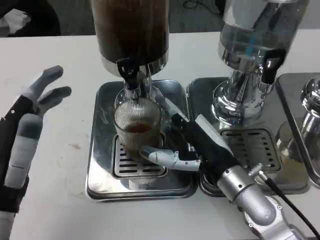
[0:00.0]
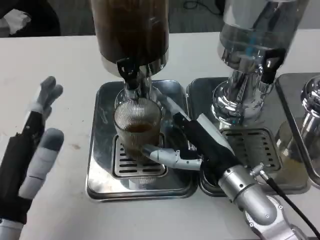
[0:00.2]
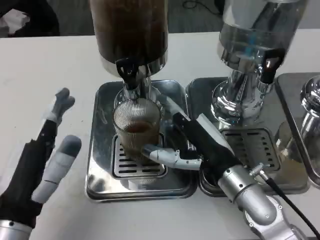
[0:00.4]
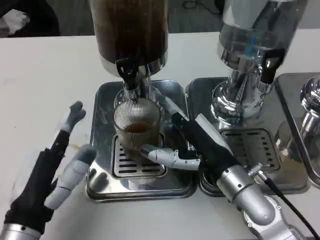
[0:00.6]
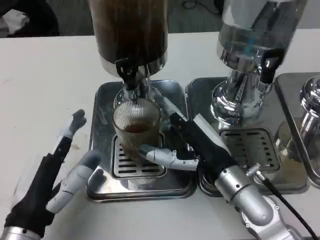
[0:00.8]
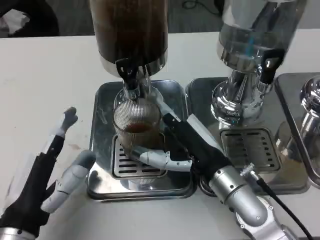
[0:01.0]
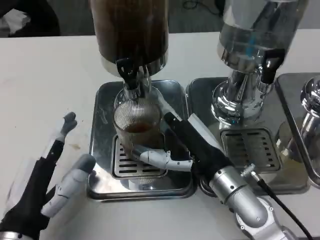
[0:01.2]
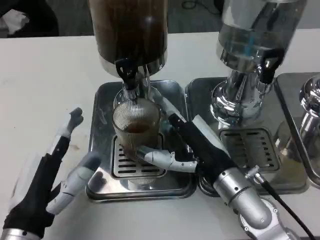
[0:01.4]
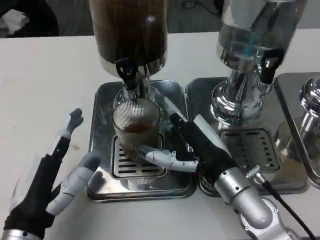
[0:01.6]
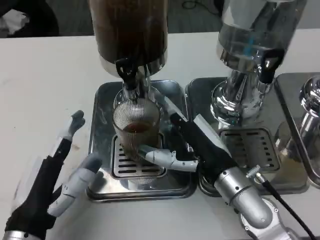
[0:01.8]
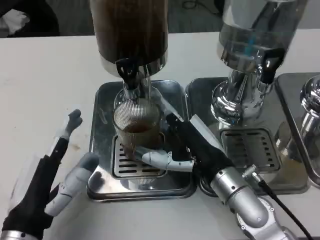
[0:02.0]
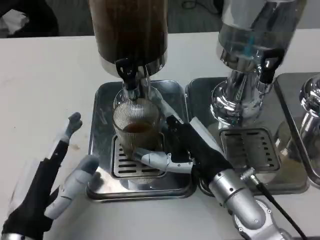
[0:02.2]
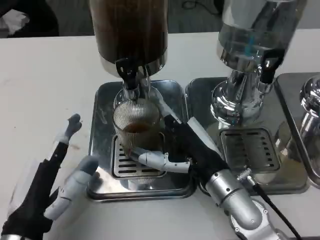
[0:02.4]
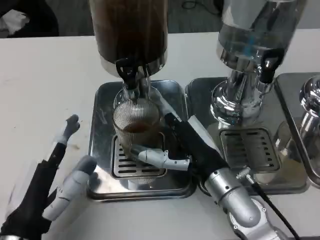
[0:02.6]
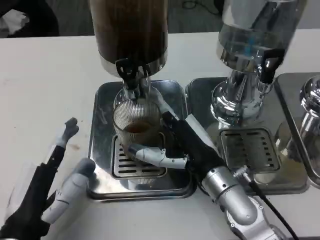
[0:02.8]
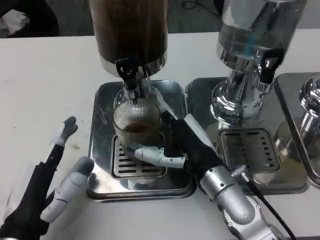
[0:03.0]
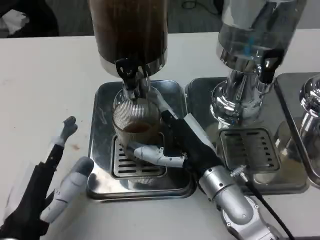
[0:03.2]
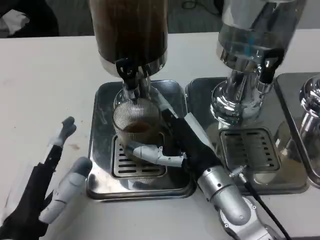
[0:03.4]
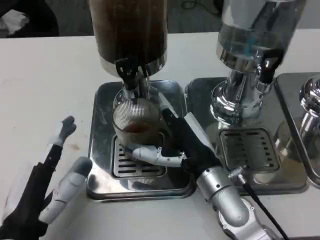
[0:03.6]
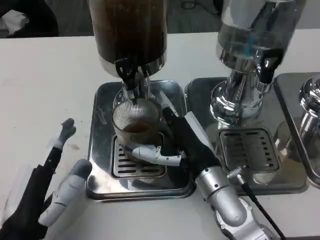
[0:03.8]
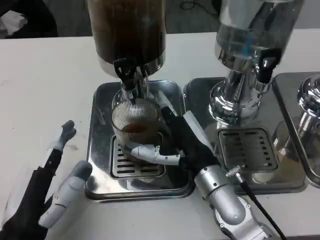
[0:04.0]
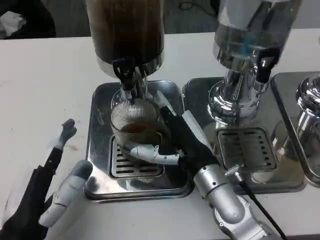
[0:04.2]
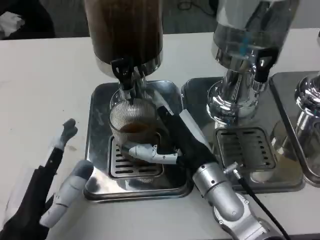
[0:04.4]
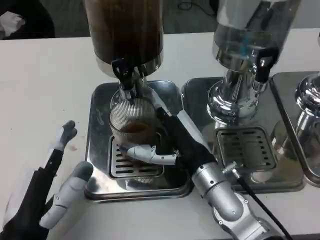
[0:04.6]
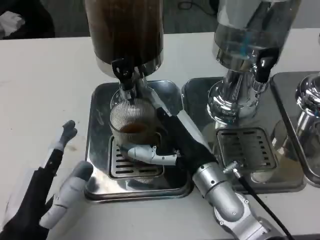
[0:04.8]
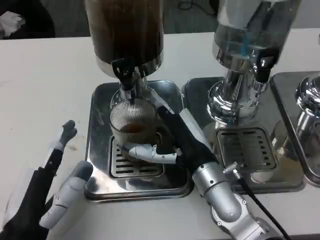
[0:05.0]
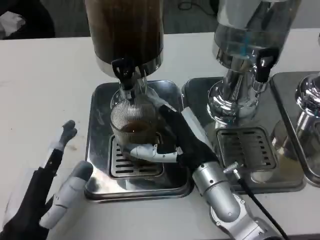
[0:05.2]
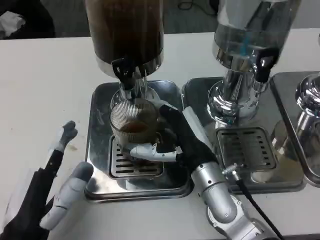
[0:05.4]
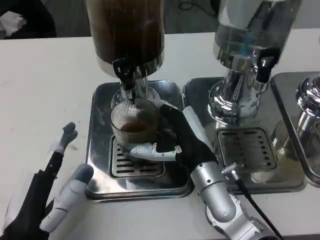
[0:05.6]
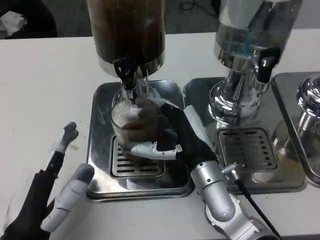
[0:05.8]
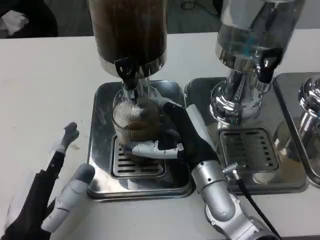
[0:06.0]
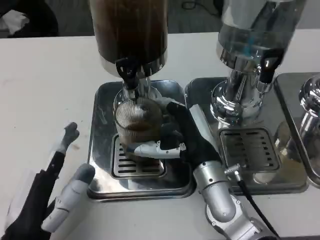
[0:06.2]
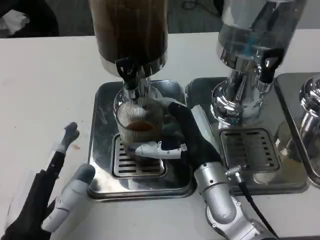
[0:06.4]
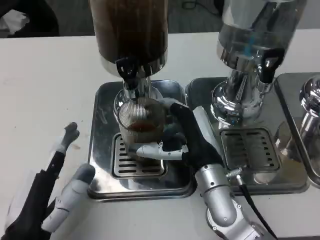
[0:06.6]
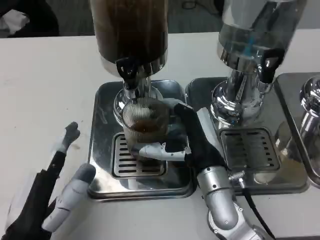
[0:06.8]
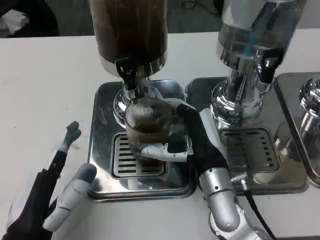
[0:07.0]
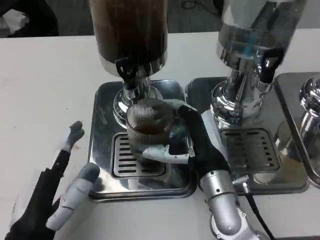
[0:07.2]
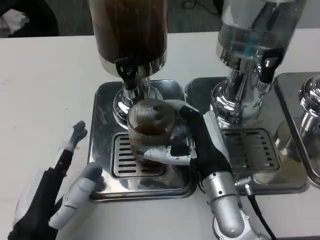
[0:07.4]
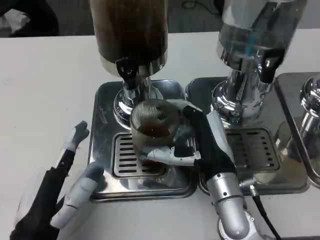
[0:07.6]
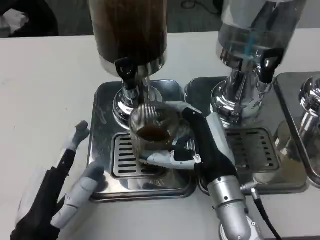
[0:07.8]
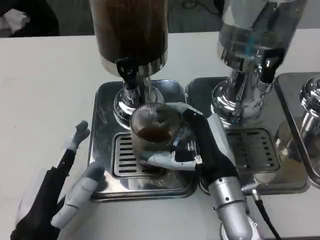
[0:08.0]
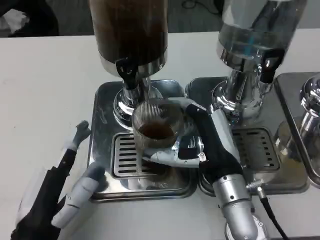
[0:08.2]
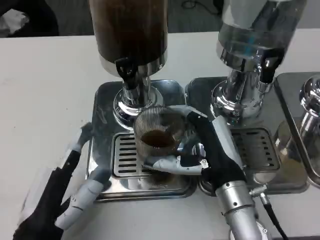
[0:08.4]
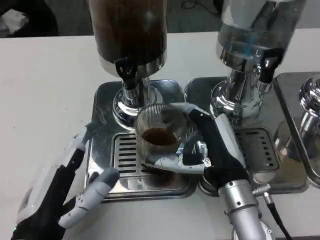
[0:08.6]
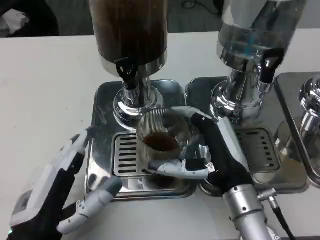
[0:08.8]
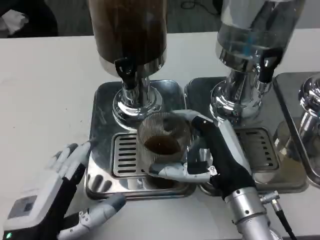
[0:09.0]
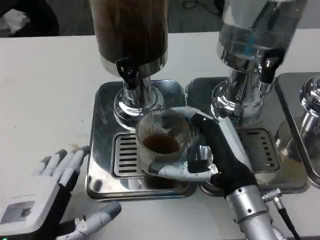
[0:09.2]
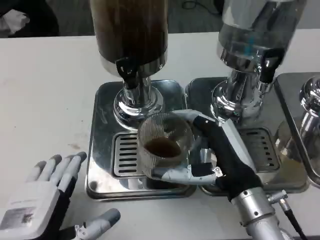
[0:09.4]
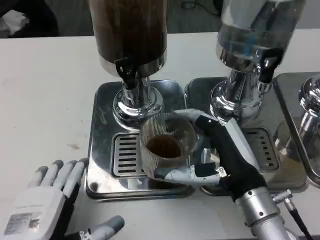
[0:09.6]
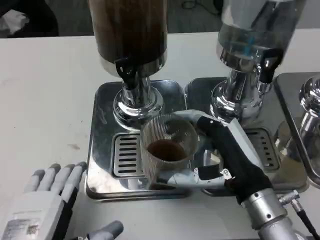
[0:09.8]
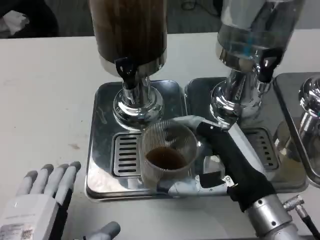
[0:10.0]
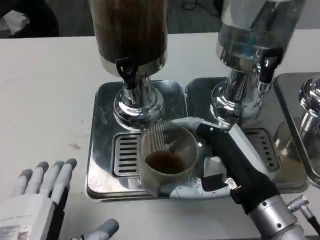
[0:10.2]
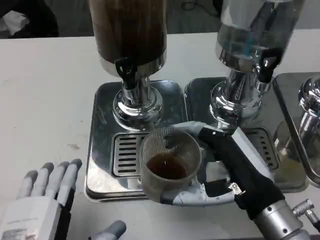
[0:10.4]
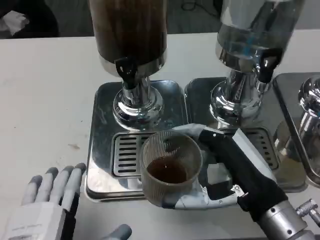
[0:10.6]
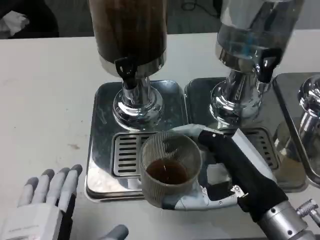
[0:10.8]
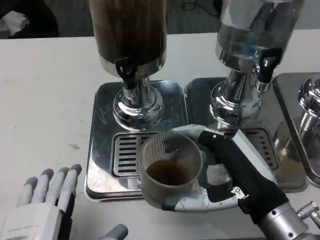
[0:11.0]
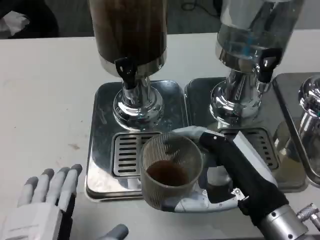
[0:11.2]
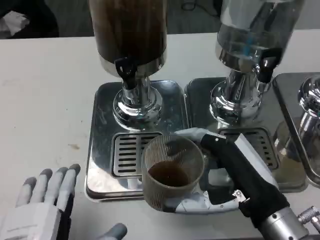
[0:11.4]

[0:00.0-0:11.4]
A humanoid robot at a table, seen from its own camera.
Task of the whole recording: Grasp the cup under the faucet to collect the drink, then remove the cup.
0:01.4 to 0:02.8: The hands stay close to where they were, moving slightly.
0:04.2 to 0:05.6: The hands make only small movements.
0:07.2 to 0:08.6: There are only small adjustments of the hands.
0:08.6 to 0:10.0: The right hand changes place by roughly 5 cm; the left hand heads backward, covering roughly 5 cm.
0:10.0 to 0:11.4: There are only small adjustments of the hands.

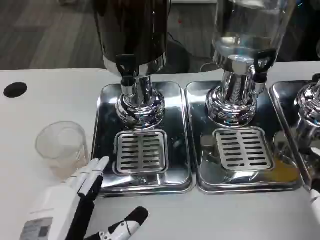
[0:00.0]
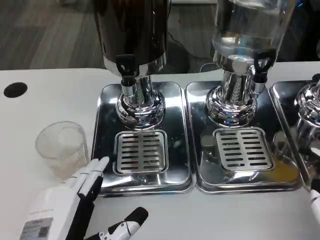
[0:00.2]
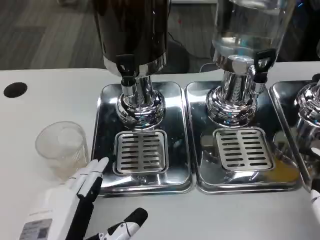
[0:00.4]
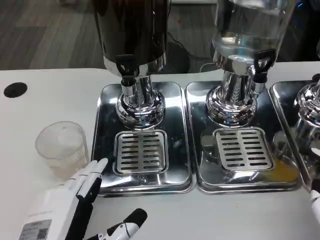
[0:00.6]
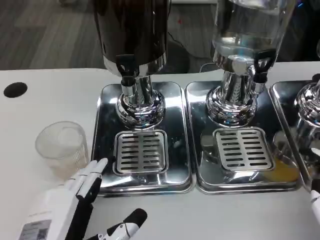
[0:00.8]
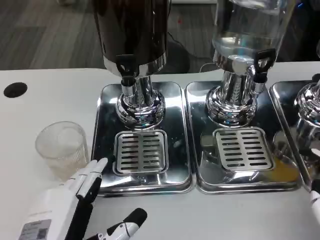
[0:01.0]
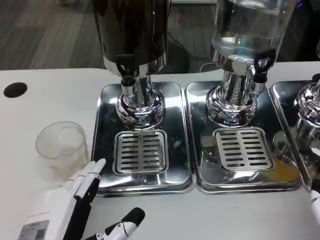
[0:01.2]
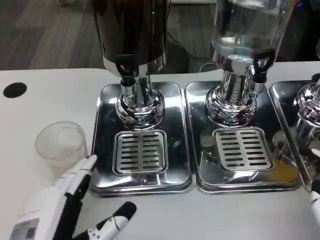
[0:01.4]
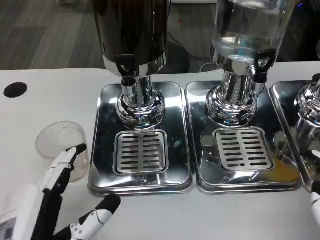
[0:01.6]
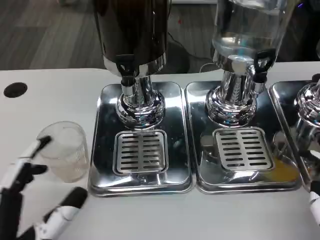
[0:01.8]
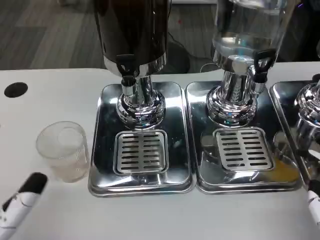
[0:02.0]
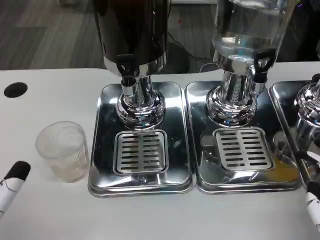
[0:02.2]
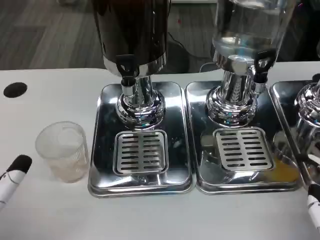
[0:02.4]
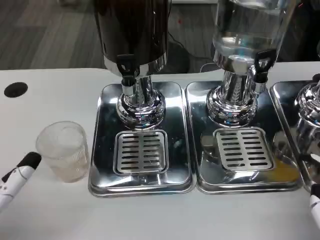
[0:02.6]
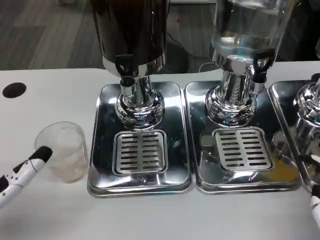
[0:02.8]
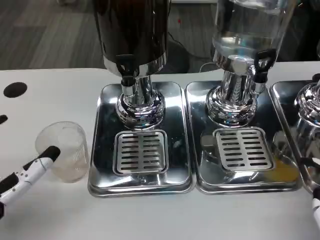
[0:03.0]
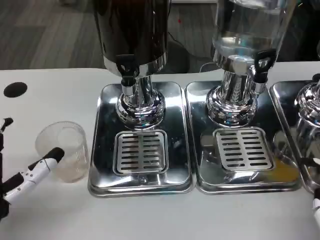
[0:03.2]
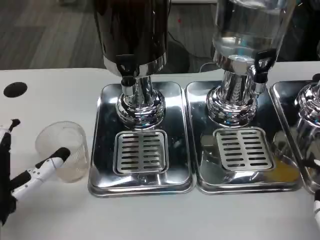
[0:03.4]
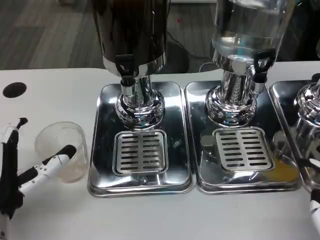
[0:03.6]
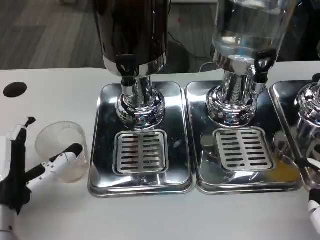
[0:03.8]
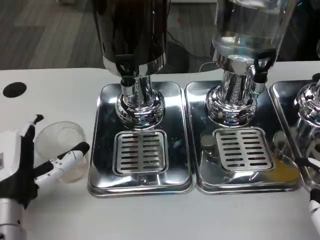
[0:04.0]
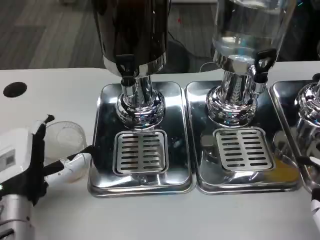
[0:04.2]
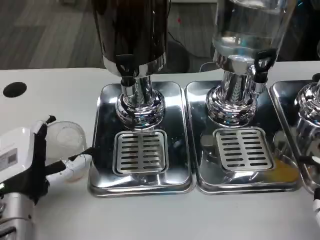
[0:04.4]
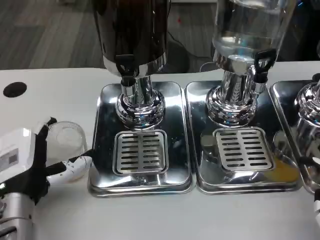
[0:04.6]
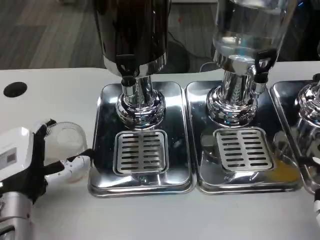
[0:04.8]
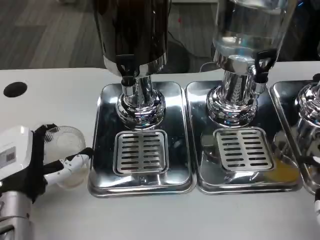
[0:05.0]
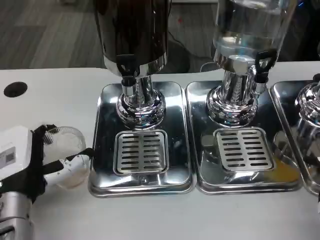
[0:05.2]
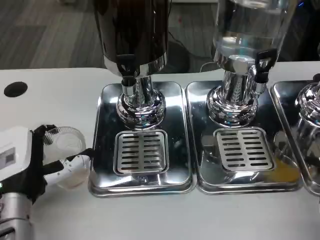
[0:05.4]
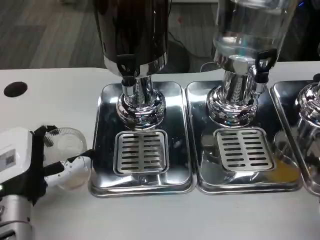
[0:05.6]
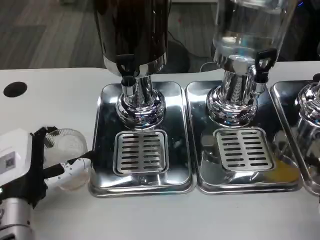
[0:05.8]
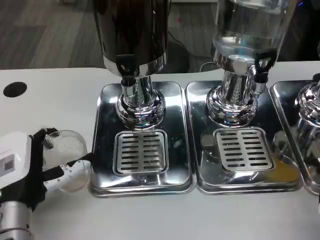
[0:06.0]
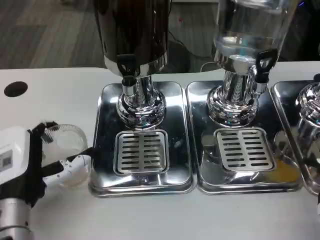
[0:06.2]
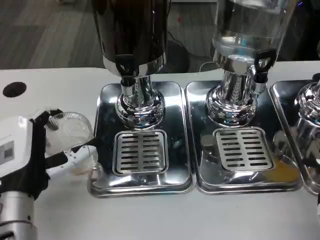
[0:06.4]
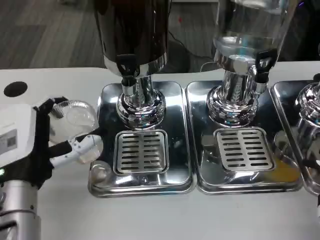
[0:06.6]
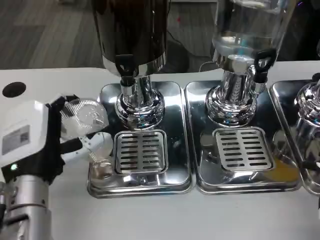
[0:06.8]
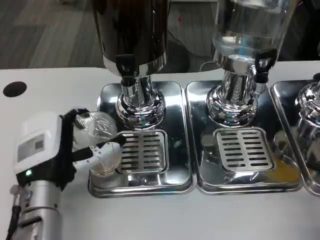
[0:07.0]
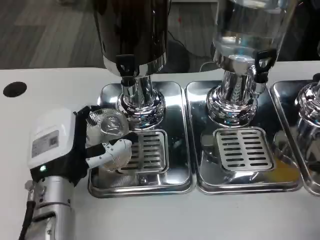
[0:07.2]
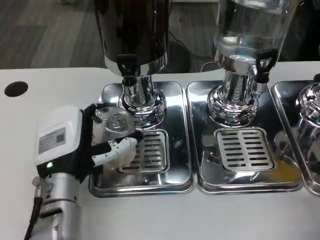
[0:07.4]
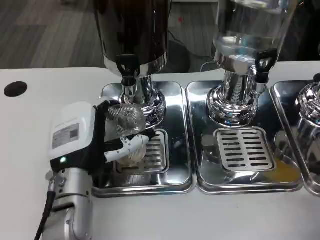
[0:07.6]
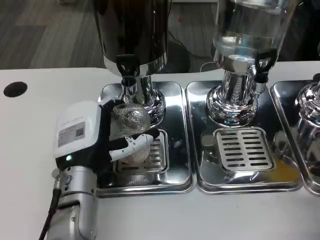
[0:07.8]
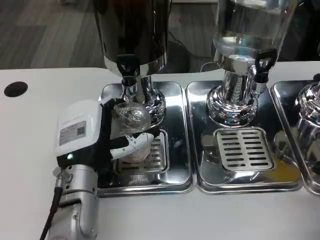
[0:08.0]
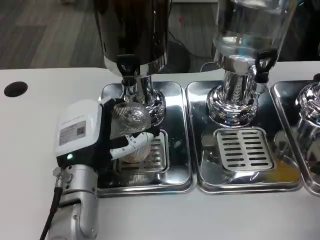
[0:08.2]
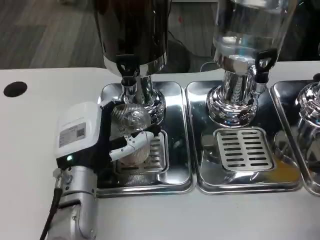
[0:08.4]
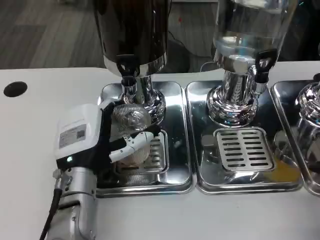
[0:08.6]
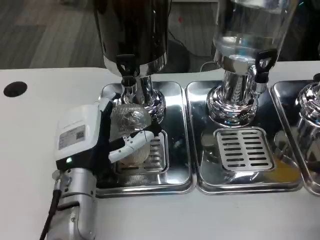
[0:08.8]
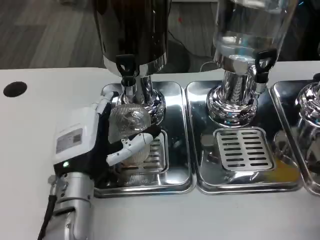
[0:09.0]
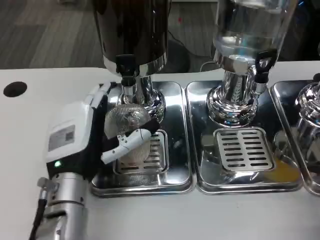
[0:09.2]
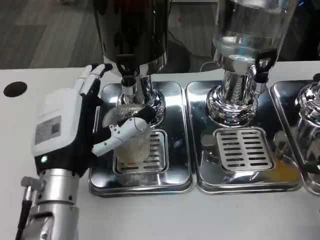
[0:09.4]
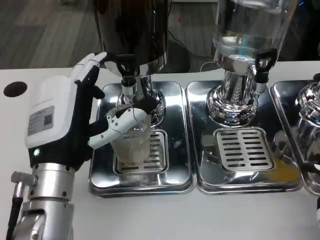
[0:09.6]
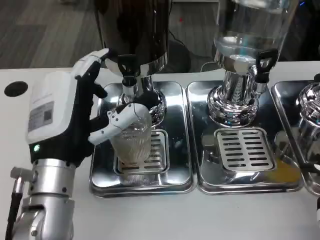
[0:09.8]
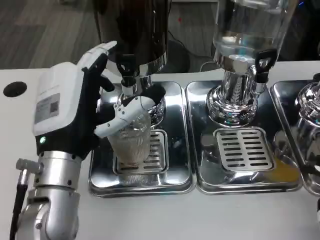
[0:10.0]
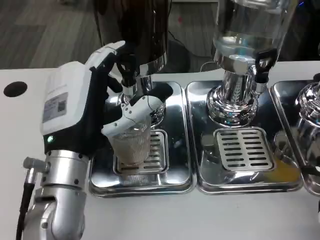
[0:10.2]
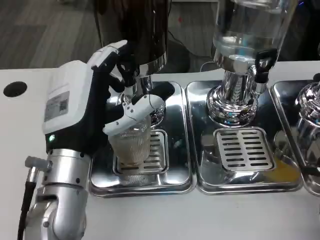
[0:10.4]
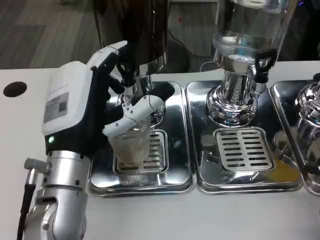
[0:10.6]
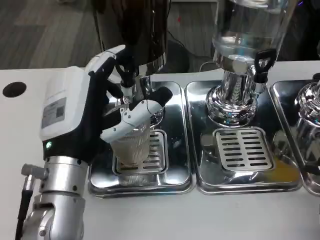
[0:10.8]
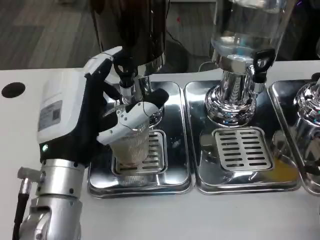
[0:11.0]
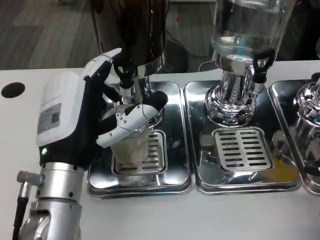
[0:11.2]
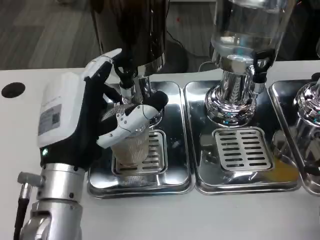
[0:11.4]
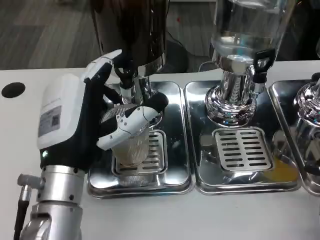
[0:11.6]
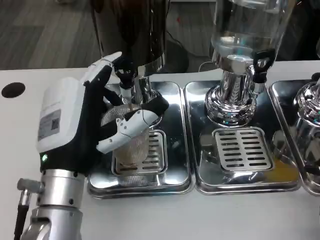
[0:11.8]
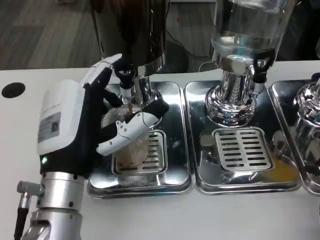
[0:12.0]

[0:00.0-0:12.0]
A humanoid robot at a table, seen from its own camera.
Task of the whole recording: Grasp the cup under the faucet to collect the drink, then remove the cup.
0:00.0 to 0:01.6: The hands move only a little.
0:01.6 to 0:03.0: The left hand is displaced forward by roughly 5 cm.
0:03.0 to 0:04.4: The left hand is displaced forward by some 5 cm.
0:04.4 to 0:06.0: Both hands stay about where they are.
0:06.0 to 0:07.6: The left hand moves to the right, approximately 5 cm.
0:07.6 to 0:09.0: Both hands stay about where they are.
0:09.0 to 0:10.4: The left hand heads upward, covering some 5 cm.
